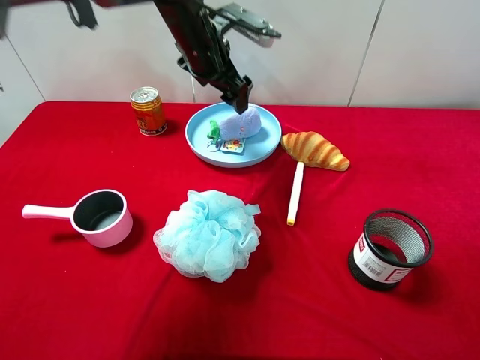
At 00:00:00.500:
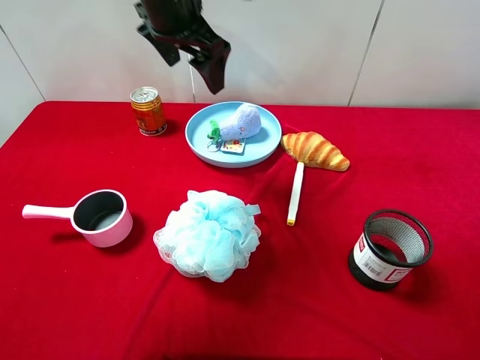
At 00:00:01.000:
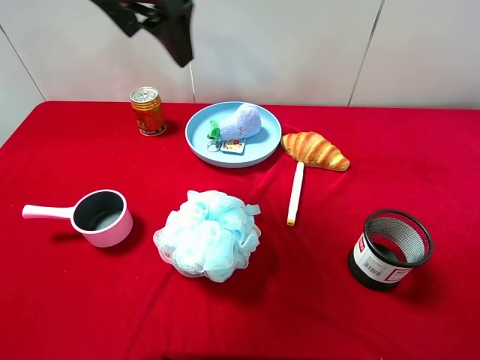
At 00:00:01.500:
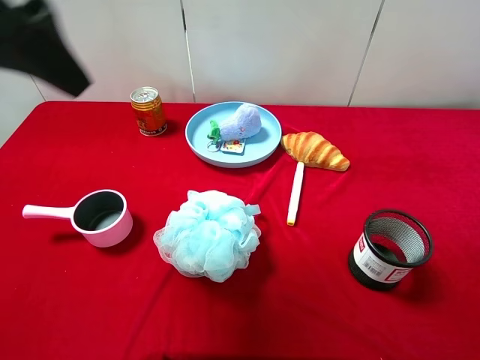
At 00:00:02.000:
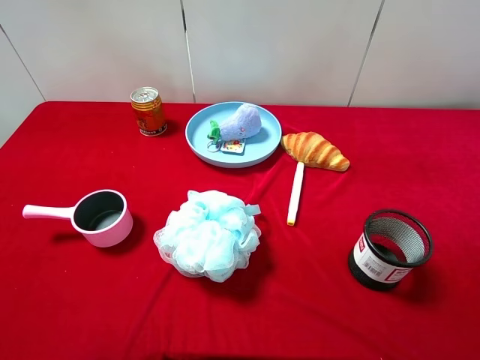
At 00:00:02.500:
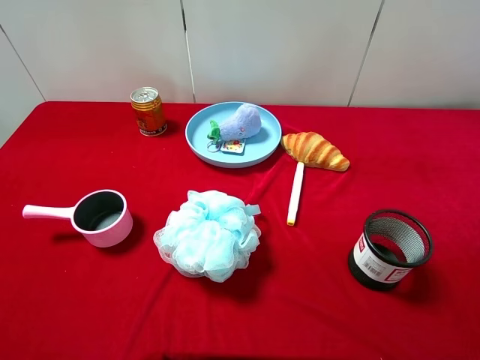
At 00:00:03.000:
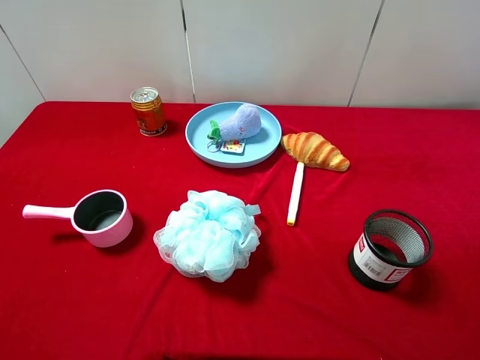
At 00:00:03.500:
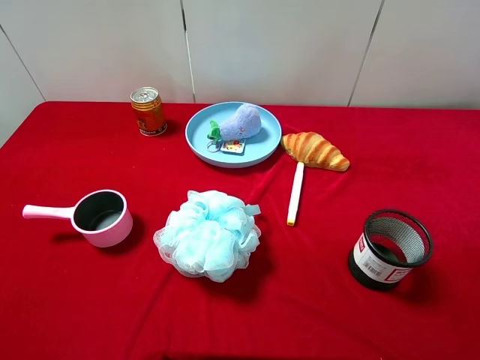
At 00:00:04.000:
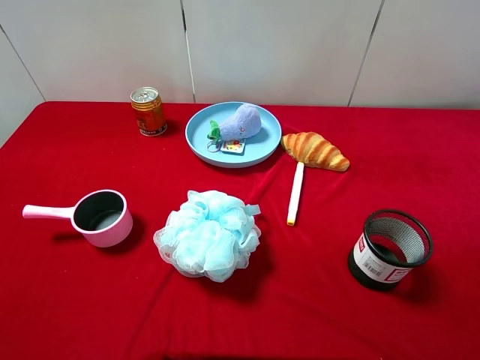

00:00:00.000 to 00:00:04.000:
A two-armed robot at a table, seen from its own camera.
Task of the whole recording: pick up an item with a gripper and place it in a random container on the desktop.
00:00:00.000 to 00:00:02.000: The left gripper heads backward and to the left, covering some 40 cm.
